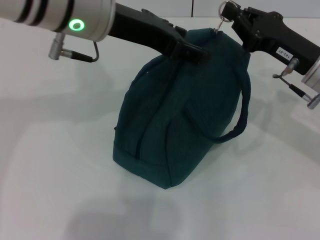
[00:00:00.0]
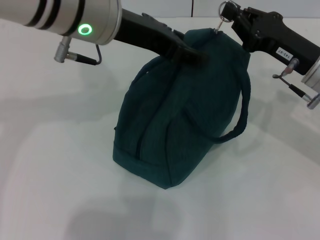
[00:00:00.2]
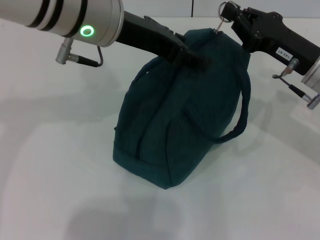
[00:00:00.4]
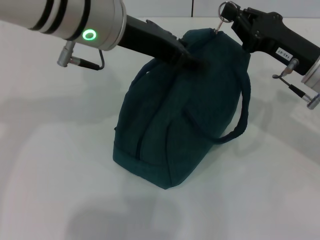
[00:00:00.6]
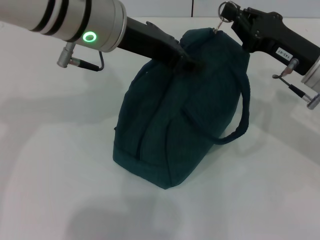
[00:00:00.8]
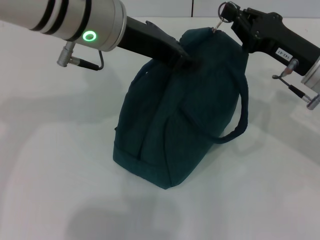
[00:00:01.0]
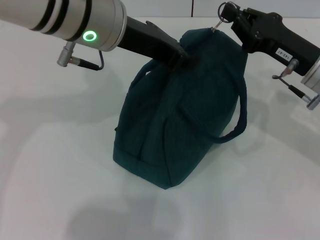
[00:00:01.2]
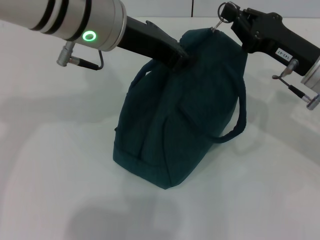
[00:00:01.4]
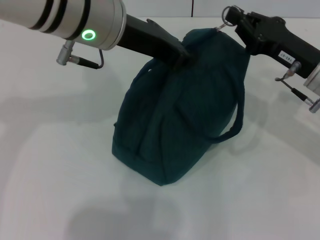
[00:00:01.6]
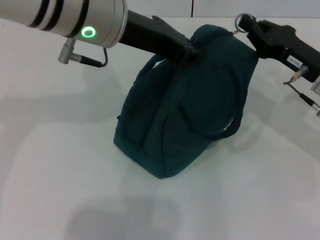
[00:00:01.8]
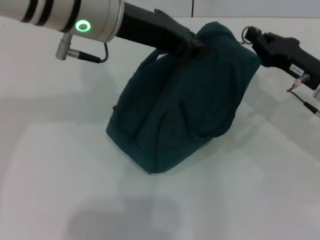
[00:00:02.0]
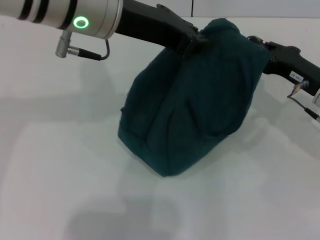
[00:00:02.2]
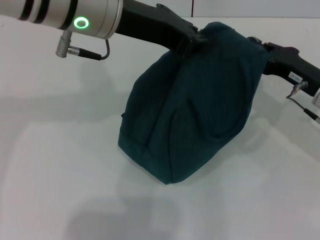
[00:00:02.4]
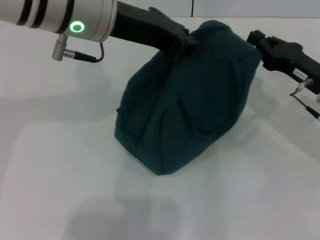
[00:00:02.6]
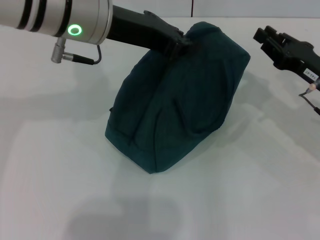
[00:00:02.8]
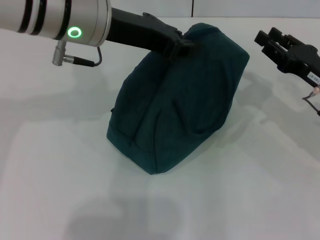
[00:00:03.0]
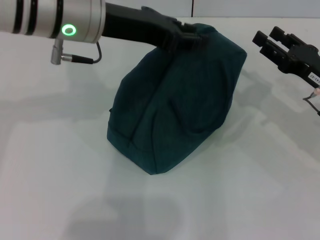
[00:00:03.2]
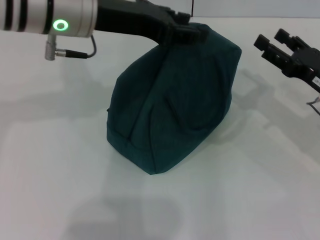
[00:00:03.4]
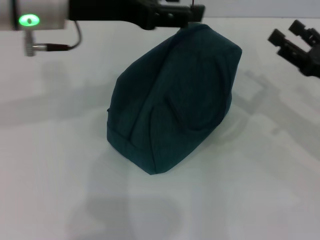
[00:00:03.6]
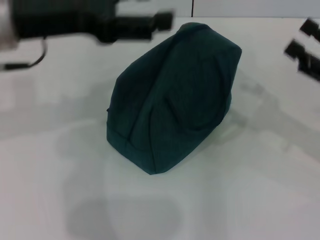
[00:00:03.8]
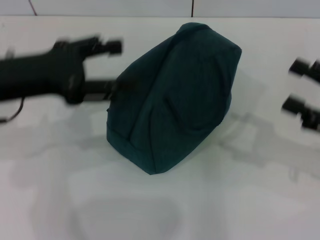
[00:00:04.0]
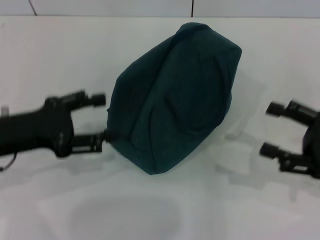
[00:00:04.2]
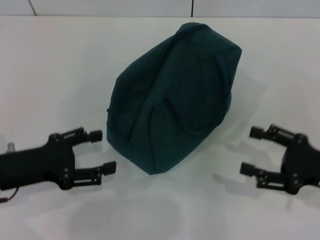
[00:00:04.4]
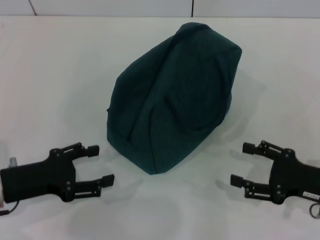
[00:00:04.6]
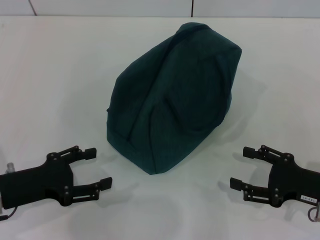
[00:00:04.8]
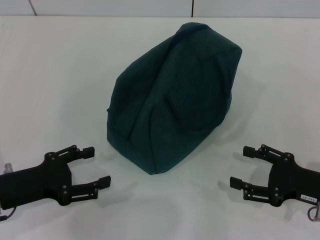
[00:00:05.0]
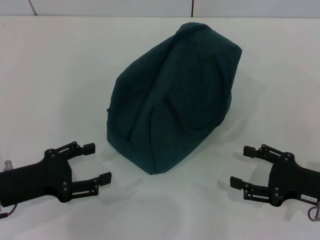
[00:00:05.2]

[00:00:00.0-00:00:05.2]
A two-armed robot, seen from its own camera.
Step, 00:00:00.0 to 00:00:02.6: Zip up the lunch bag with your right hand.
Step, 00:00:02.8 to 00:00:03.2: Hold the lunch bag with your left hand.
00:00:00.0 to 00:00:01.8: The left gripper closes.
00:00:01.8 to 00:00:03.4: The left gripper opens up. Meanwhile the right gripper opens up.
00:00:03.4 to 00:00:05.2: The right gripper moves backward and downward, some 10 cm. The left gripper shifts about 30 cm downward, backward and to the left, and opens its fingers.
